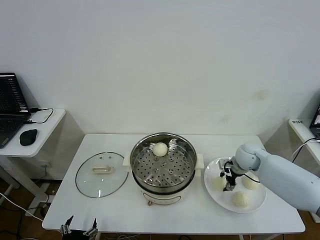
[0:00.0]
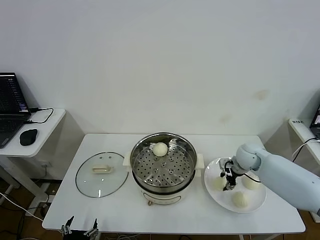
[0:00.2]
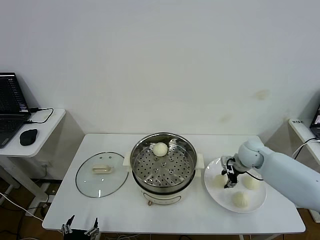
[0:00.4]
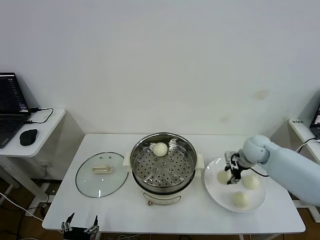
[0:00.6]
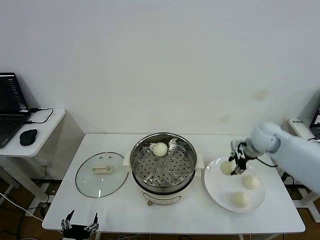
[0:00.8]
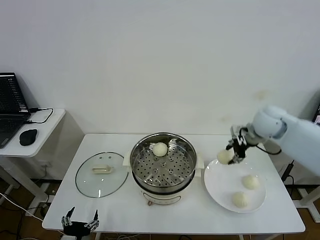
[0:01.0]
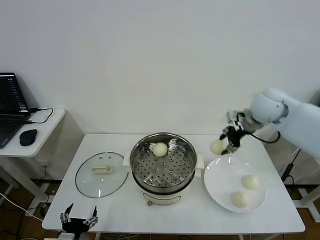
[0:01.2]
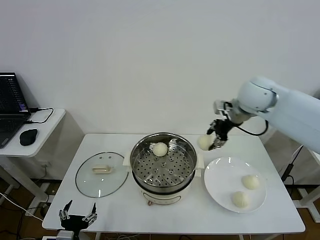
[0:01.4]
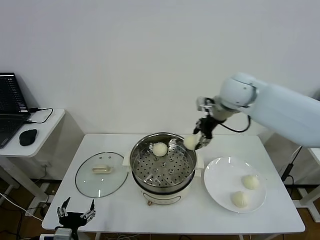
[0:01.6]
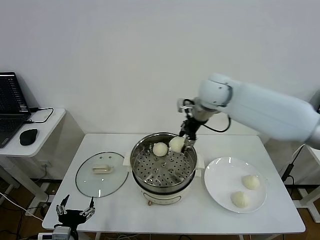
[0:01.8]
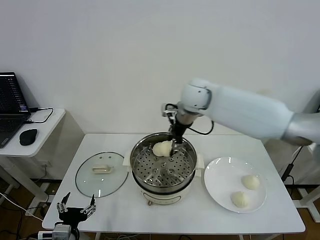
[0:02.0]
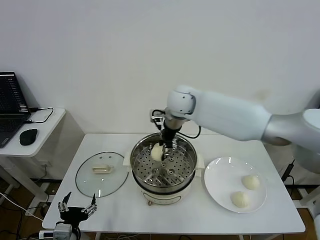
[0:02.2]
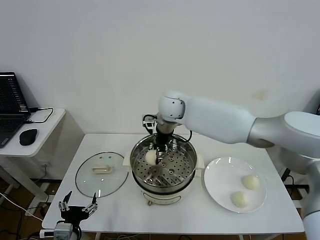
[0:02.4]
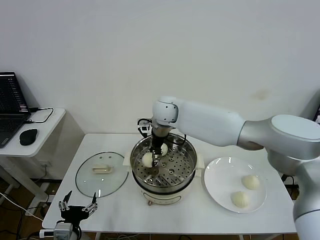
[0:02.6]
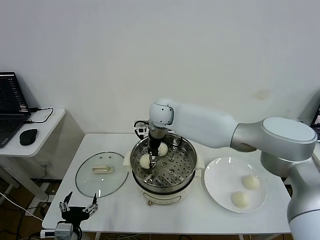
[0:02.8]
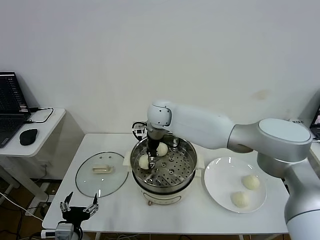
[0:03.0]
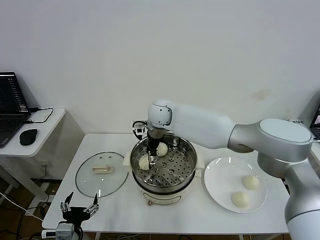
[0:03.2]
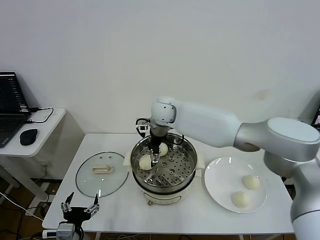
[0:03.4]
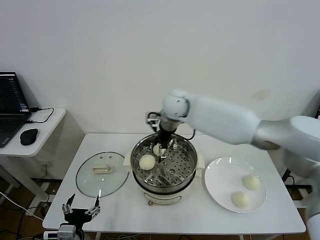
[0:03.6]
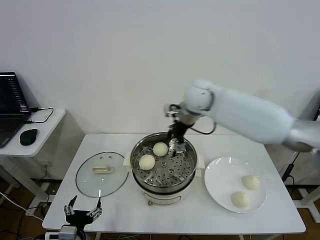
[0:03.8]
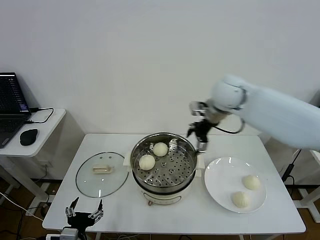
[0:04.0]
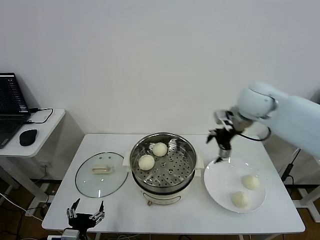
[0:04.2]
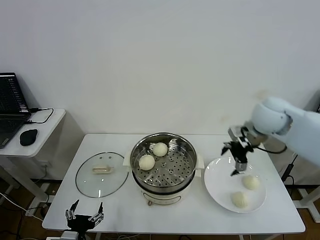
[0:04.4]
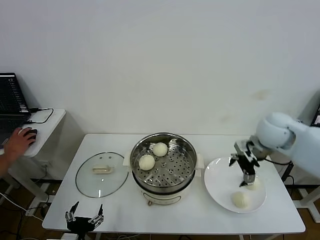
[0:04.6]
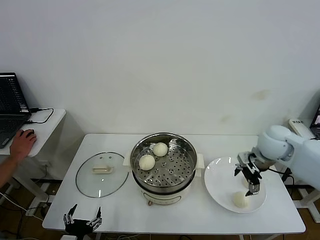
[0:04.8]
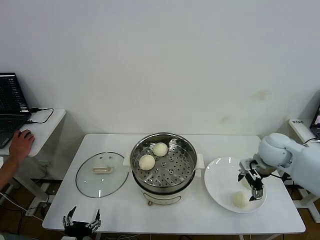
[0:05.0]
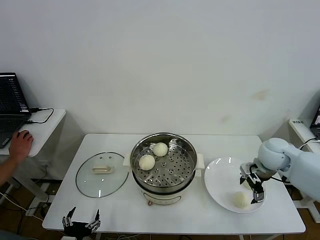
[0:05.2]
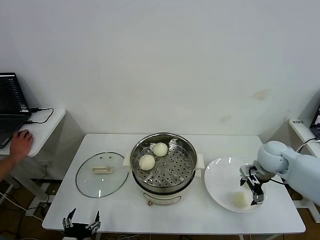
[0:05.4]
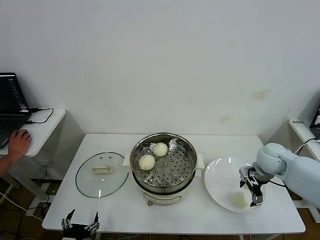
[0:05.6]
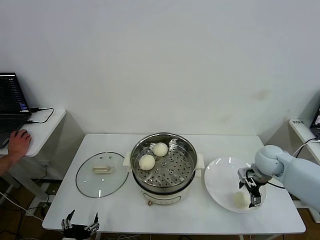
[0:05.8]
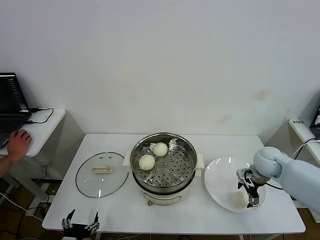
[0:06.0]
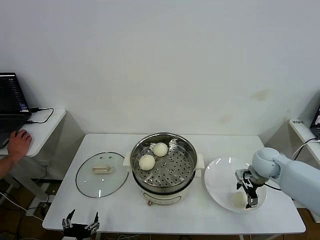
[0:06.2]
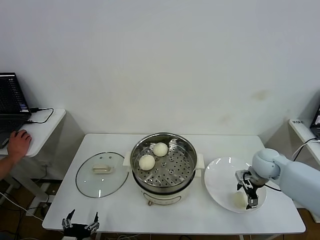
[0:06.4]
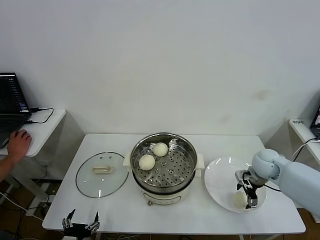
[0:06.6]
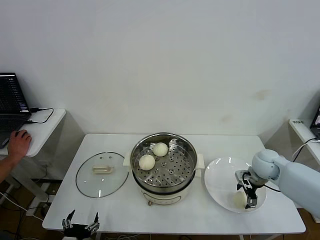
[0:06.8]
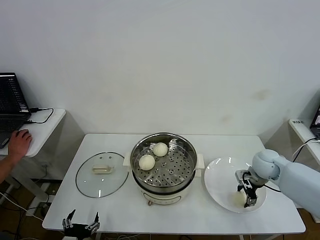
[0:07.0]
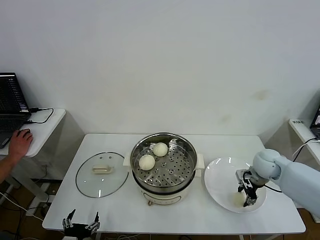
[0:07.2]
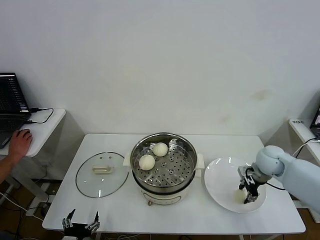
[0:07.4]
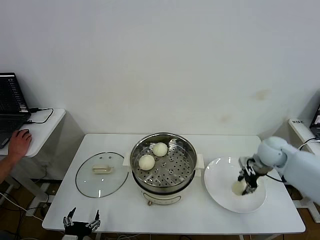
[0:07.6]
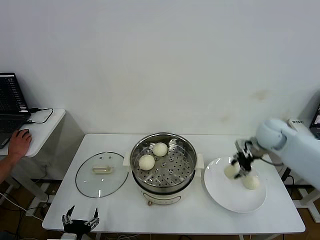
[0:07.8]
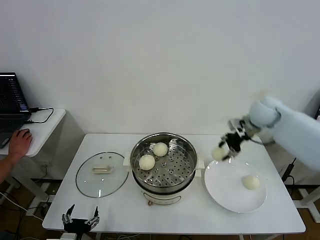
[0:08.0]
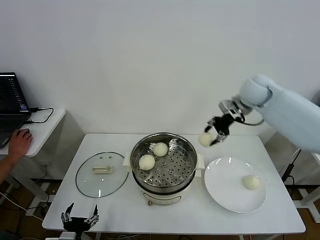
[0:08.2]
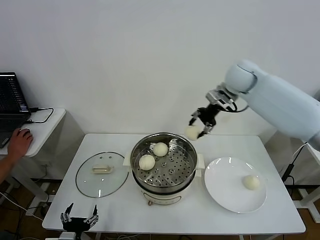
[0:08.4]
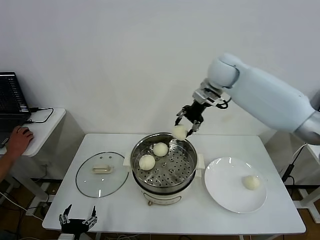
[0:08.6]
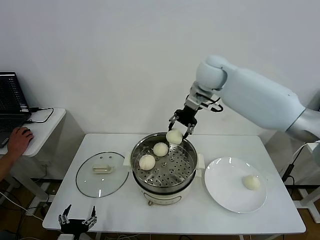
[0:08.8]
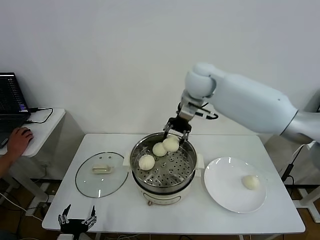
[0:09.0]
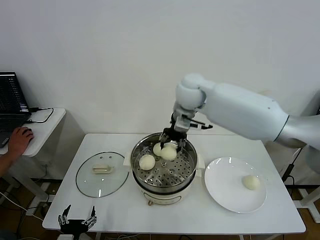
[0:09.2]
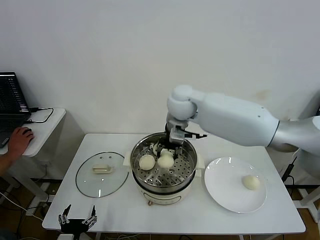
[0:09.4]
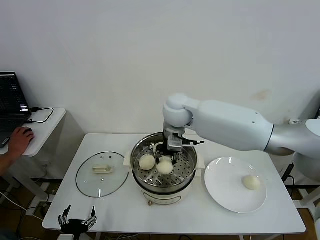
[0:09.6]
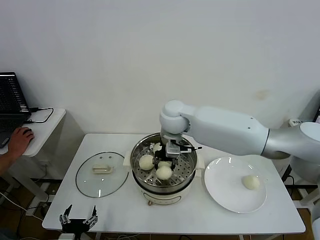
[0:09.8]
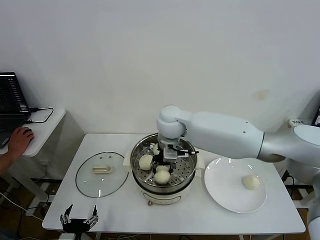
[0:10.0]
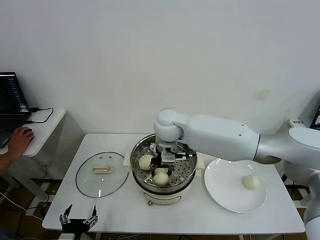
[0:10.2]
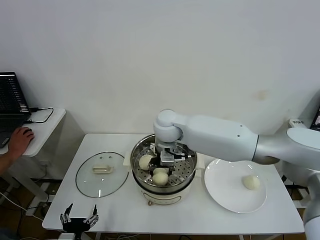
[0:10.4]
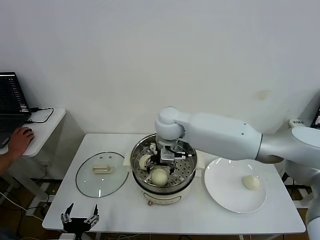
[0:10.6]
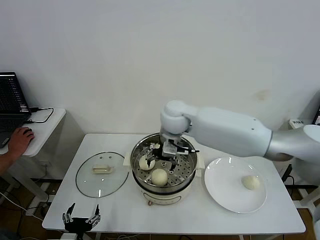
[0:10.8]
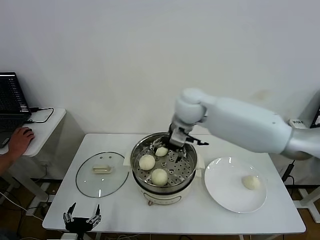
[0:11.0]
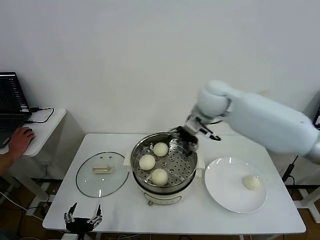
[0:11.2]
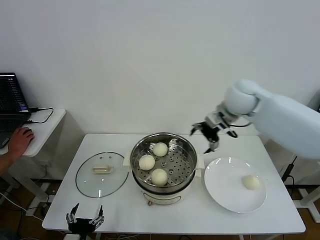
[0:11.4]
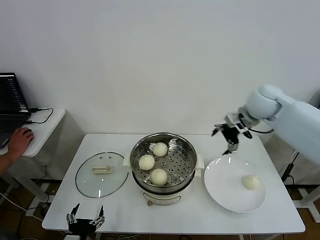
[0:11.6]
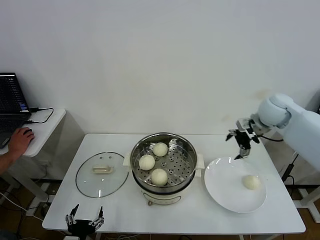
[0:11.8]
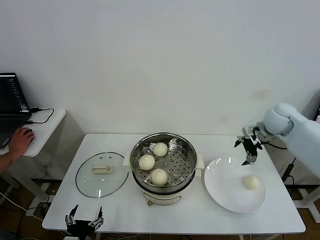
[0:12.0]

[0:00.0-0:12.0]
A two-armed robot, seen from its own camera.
Step, 0:00.2 to 0:03.4: Place the baozi on the steamer with right gripper.
Step, 0:03.6 to 0:07.2: Grasp the baozi in the plate with right gripper.
Step, 0:07.4 to 0:10.6: Place the baozi on the steamer with right gripper.
0:00.0 to 0:01.6: The right gripper heads upward and to the left, covering roughly 30 cm.
0:01.6 to 0:03.0: The right gripper goes approximately 20 cm to the left and downward.
0:03.0 to 0:04.4: The right gripper heads to the right, covering roughly 30 cm, and opens its fingers.
0:04.4 to 0:06.0: The right gripper moves downward, approximately 15 cm.
0:06.0 to 0:07.6: The right gripper moves upward, approximately 5 cm, and closes up.
0:07.6 to 0:09.0: The right gripper travels to the left and upward by approximately 35 cm.
0:09.0 to 0:10.4: The right gripper is displaced downward, to the left and backward by roughly 15 cm, and opens up.
0:10.4 to 0:12.0: The right gripper moves to the right, some 35 cm, and opens up.

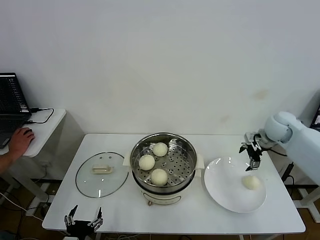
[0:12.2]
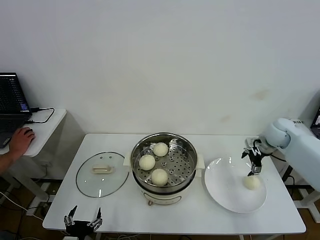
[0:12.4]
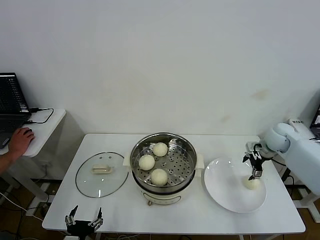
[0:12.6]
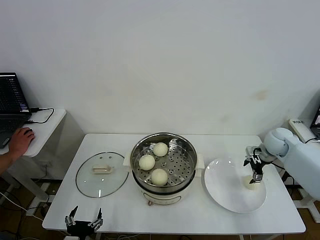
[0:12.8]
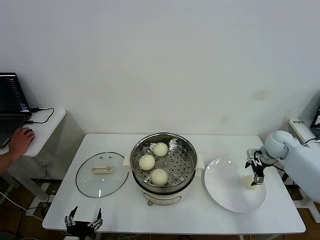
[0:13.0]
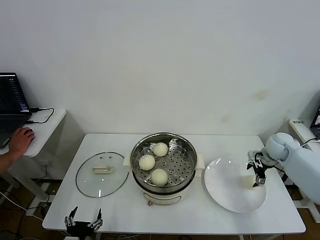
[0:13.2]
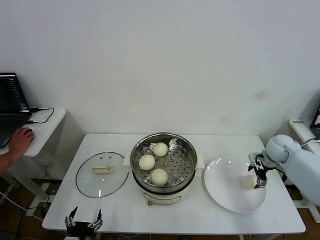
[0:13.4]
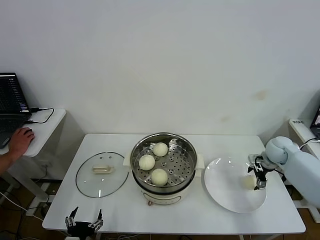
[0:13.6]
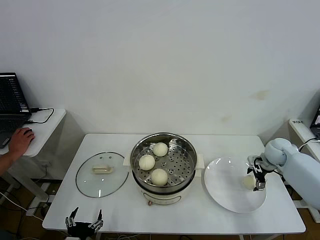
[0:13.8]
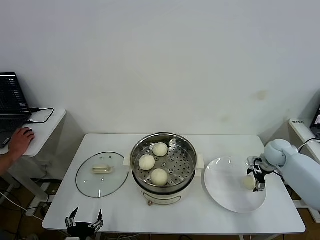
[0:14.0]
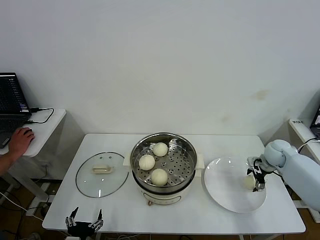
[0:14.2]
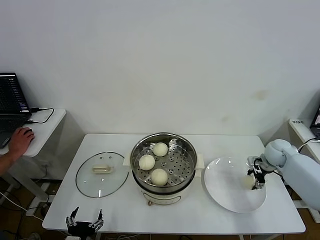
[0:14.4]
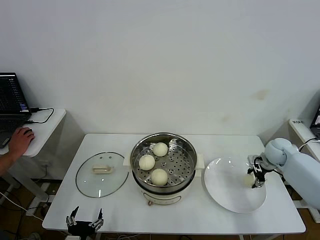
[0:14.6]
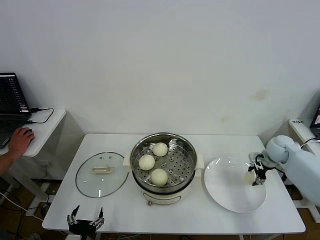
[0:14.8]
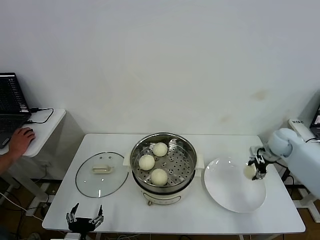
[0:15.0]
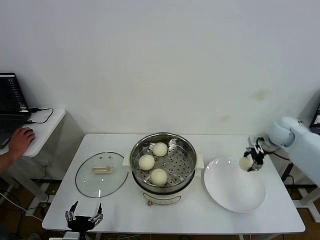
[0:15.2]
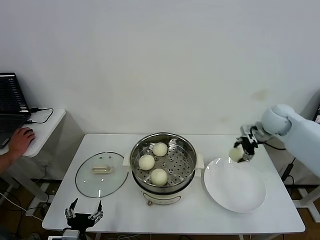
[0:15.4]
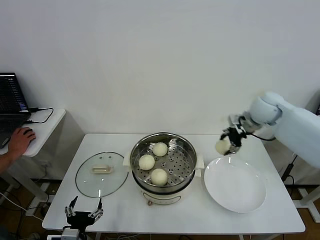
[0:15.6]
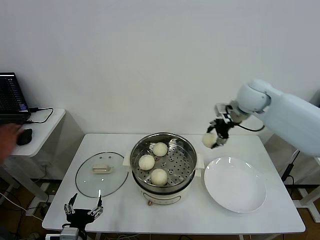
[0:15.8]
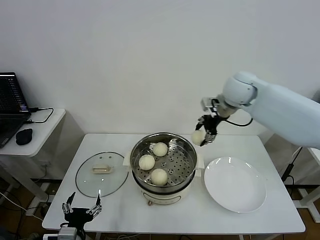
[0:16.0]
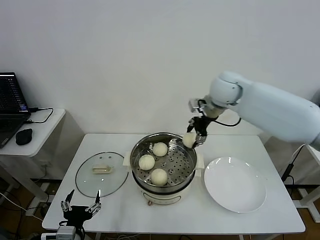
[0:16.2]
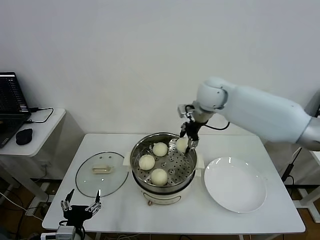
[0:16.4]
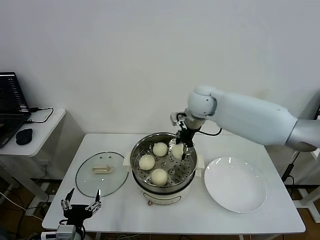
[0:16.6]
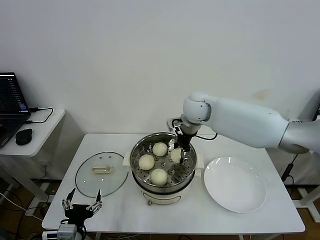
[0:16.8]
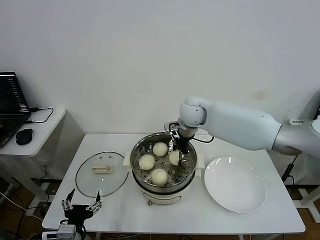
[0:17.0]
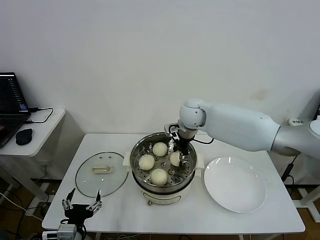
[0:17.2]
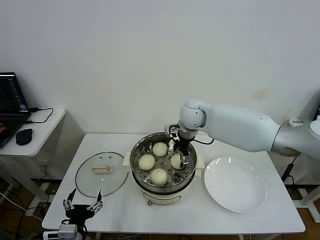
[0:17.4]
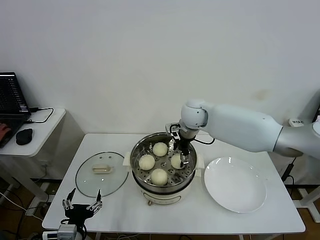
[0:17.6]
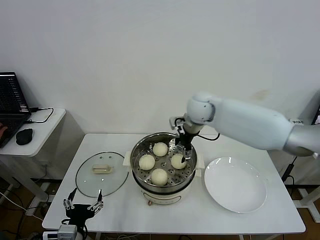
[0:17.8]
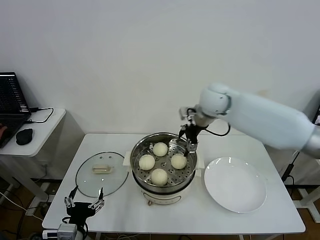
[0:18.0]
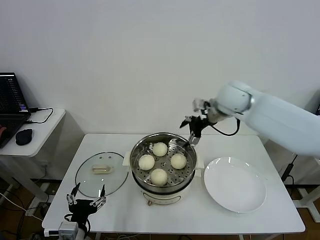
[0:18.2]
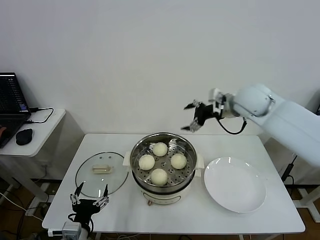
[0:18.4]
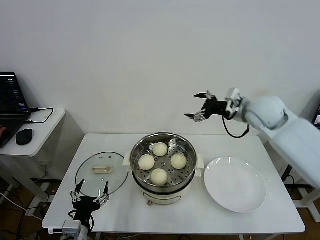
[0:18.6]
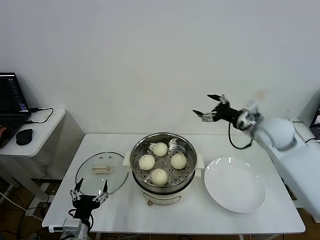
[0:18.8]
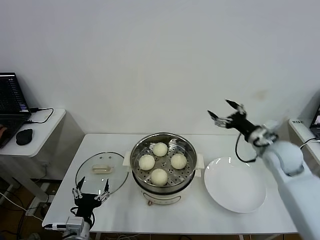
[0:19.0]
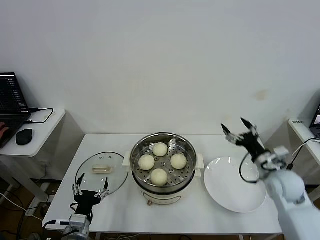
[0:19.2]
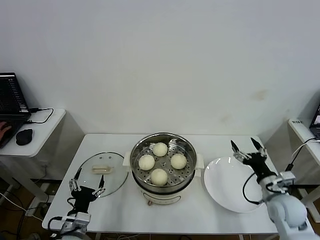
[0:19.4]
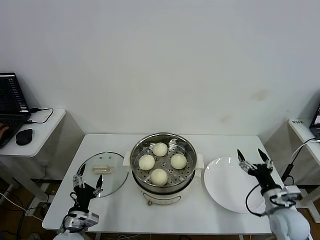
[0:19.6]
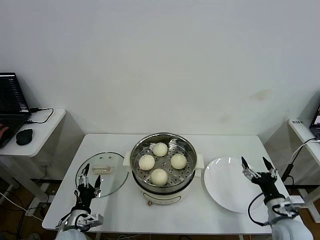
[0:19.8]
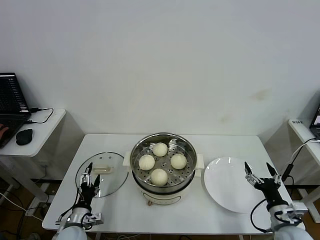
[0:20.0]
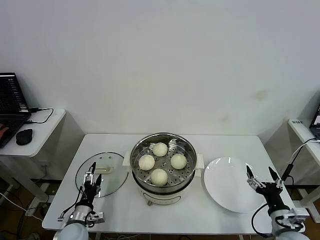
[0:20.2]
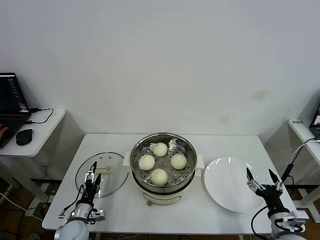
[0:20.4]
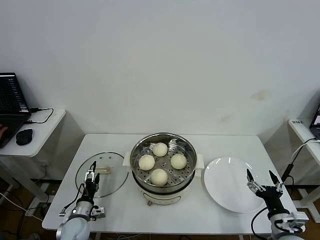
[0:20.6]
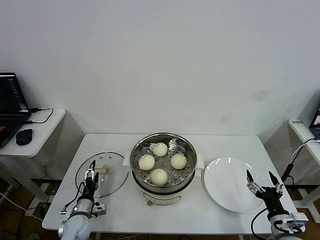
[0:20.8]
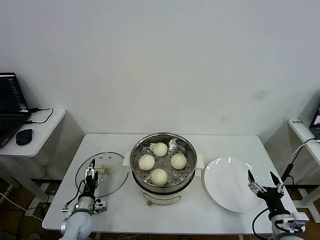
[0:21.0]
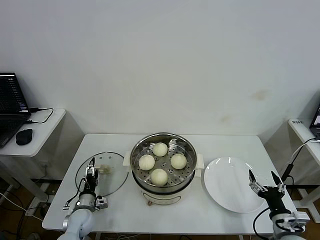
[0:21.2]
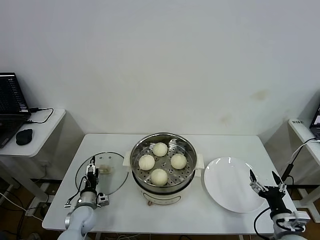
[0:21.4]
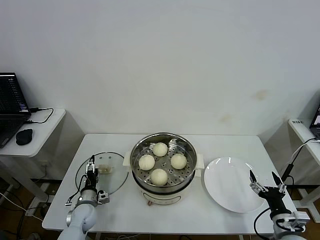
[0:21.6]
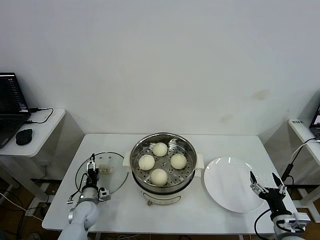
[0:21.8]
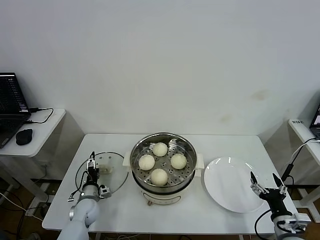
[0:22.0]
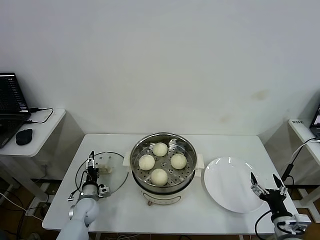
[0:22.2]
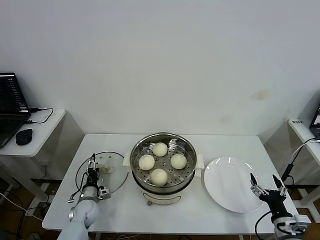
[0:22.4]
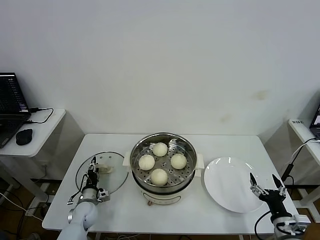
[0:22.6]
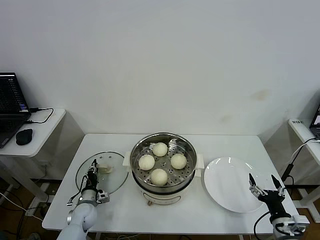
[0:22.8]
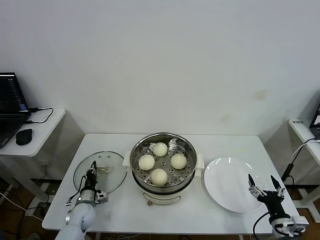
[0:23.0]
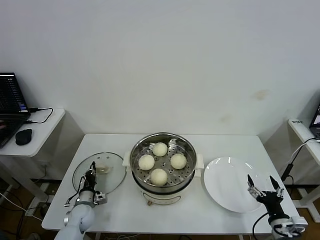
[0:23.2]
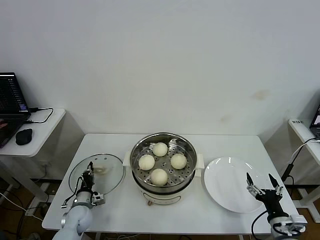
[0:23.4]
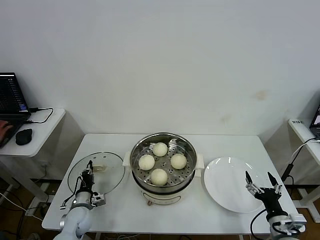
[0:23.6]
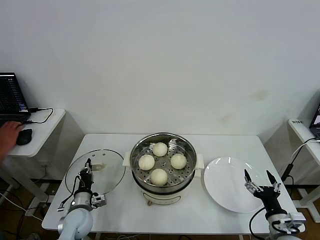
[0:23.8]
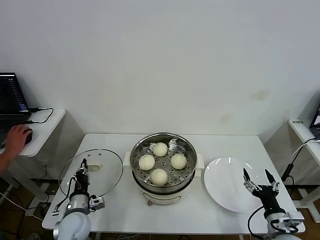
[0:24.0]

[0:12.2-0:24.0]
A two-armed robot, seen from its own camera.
Step, 0:12.2 to 0:14.6: Grasp the baozi in the plate with right gripper.
Step, 0:14.8 to 0:17.8: Place the baozi on the steamer with right gripper.
Step, 0:18.0 to 0:23.0: Grasp the pot lid with left gripper.
0:12.2 to 0:13.6: The right gripper heads downward, covering roughly 10 cm.
0:13.6 to 0:15.2: The right gripper heads upward, covering roughly 10 cm, and closes up.
0:15.2 to 0:16.6: The right gripper heads to the left, covering some 30 cm.
0:16.6 to 0:18.2: The right gripper goes roughly 10 cm to the right, and opens.
0:18.2 to 0:19.6: The right gripper moves downward, backward and to the right, some 40 cm. Meanwhile the left gripper shifts some 10 cm downward and forward.
0:19.6 to 0:21.0: The right gripper heads backward, covering some 5 cm. Meanwhile the left gripper heads downward and forward, covering about 15 cm.
0:21.0 to 0:22.6: The left gripper ends up some 5 cm from where it was, and closes up.
0:22.6 to 0:24.0: The left gripper shifts approximately 10 cm upward and backward, and closes its fingers.
